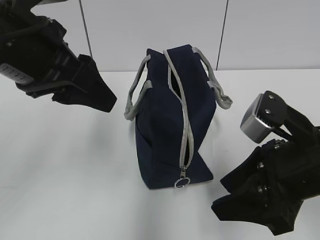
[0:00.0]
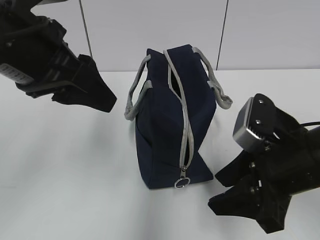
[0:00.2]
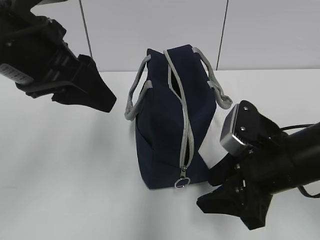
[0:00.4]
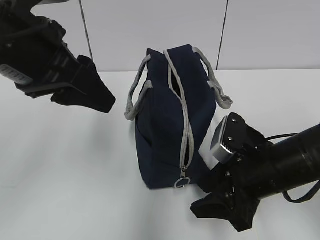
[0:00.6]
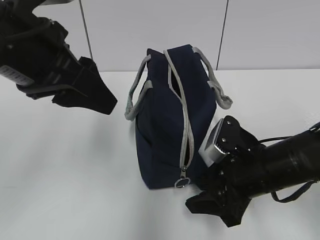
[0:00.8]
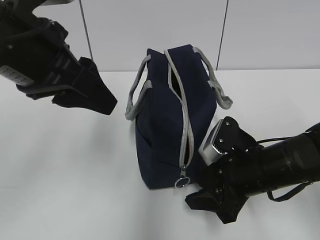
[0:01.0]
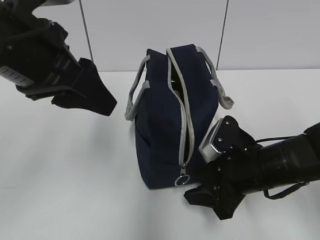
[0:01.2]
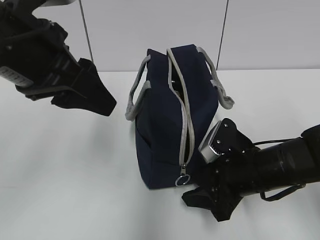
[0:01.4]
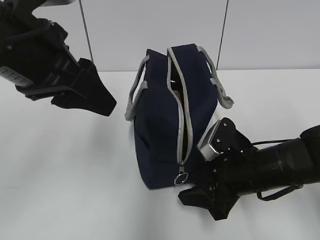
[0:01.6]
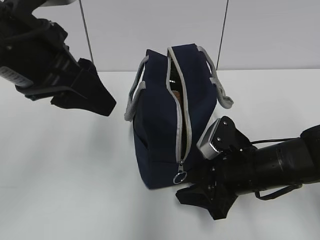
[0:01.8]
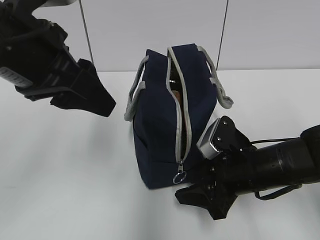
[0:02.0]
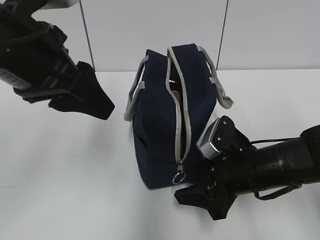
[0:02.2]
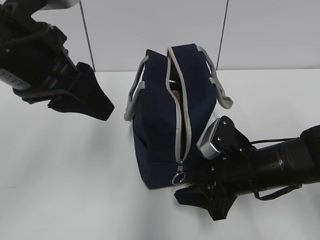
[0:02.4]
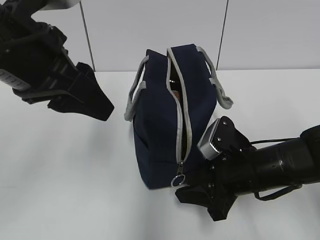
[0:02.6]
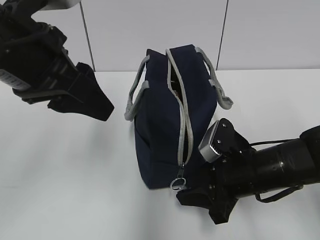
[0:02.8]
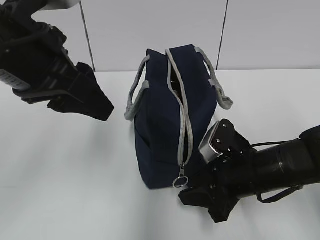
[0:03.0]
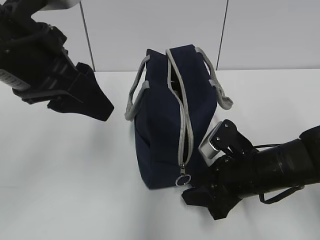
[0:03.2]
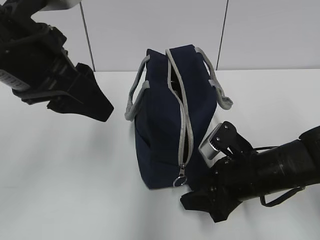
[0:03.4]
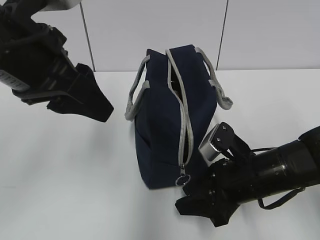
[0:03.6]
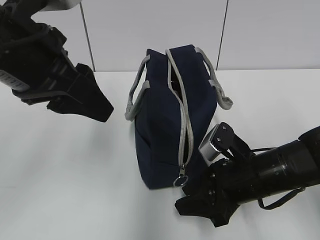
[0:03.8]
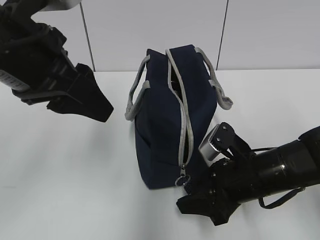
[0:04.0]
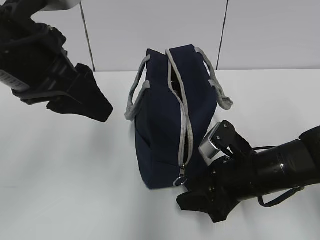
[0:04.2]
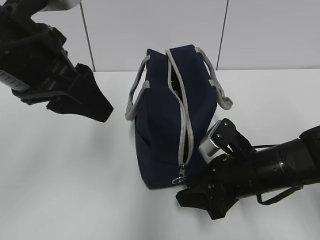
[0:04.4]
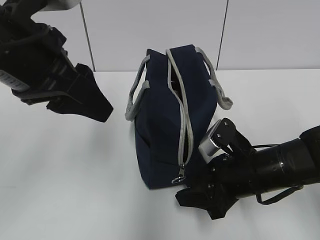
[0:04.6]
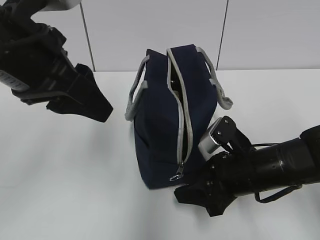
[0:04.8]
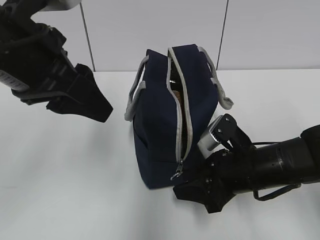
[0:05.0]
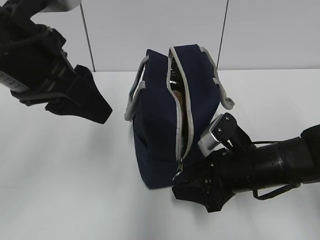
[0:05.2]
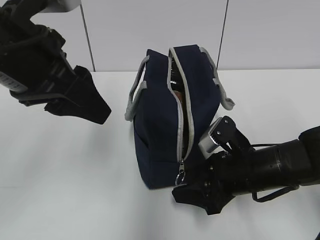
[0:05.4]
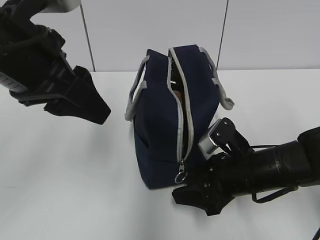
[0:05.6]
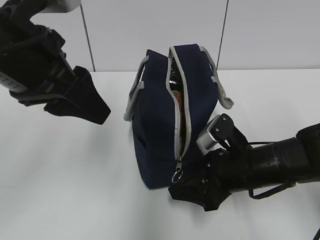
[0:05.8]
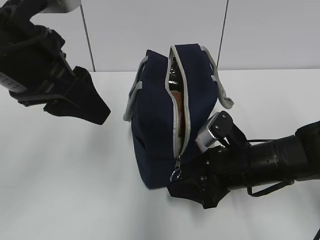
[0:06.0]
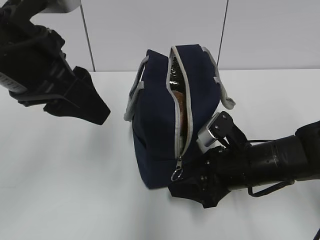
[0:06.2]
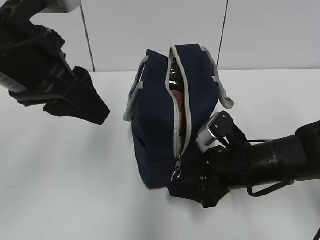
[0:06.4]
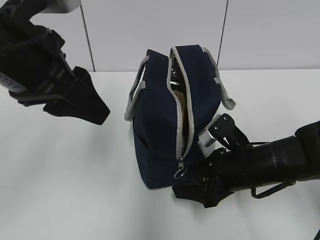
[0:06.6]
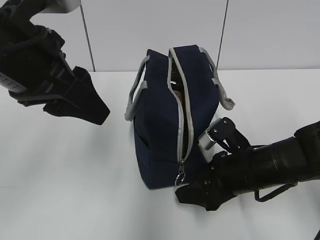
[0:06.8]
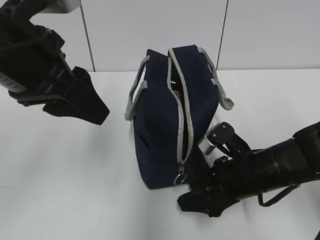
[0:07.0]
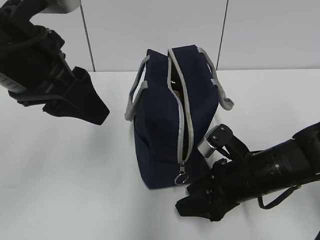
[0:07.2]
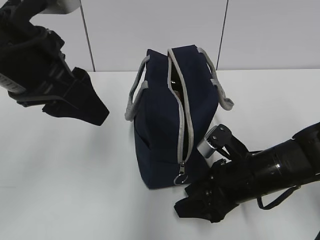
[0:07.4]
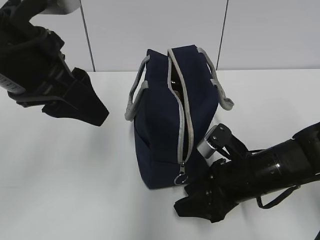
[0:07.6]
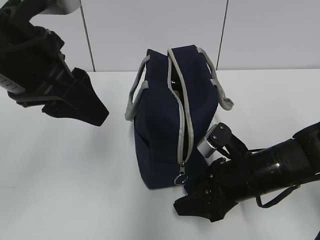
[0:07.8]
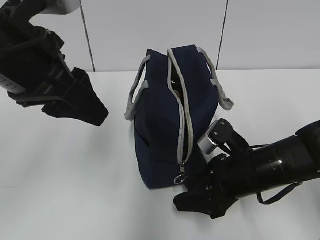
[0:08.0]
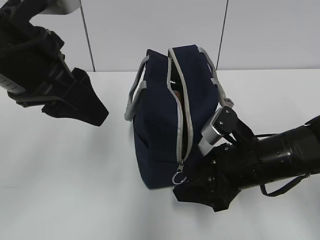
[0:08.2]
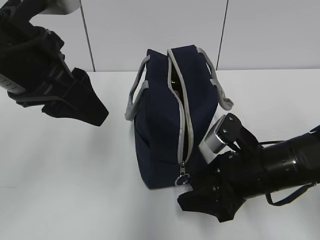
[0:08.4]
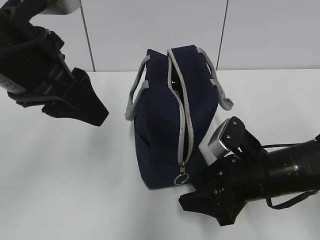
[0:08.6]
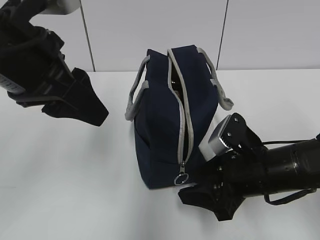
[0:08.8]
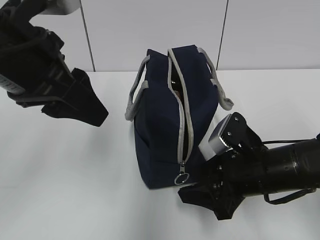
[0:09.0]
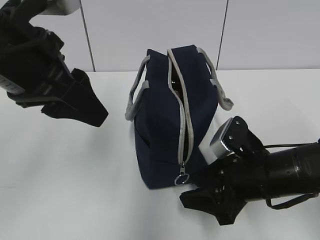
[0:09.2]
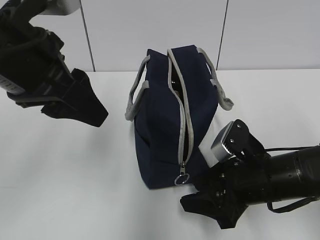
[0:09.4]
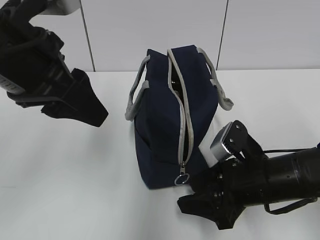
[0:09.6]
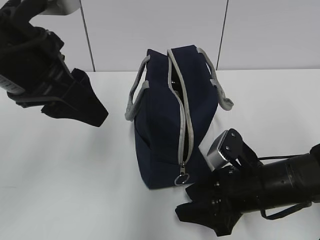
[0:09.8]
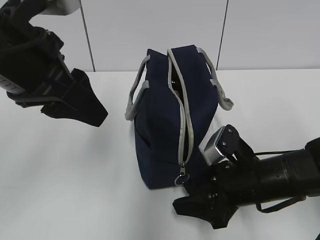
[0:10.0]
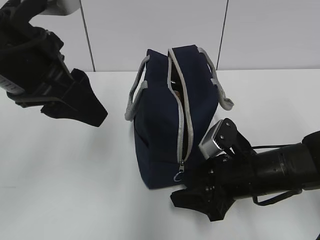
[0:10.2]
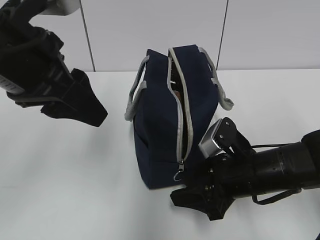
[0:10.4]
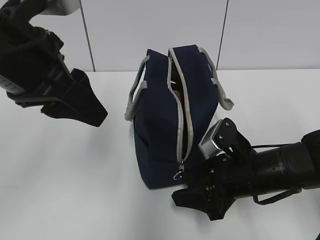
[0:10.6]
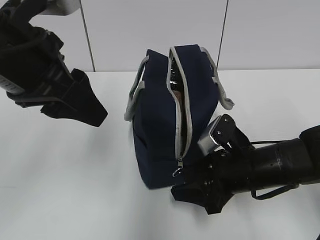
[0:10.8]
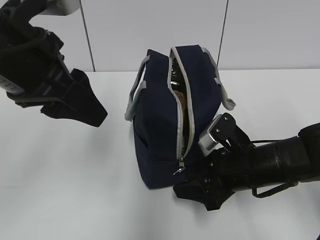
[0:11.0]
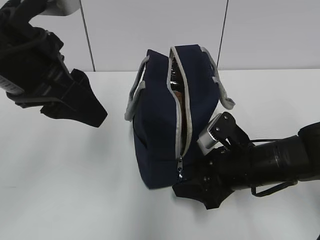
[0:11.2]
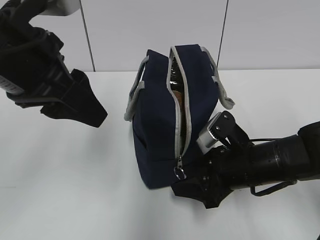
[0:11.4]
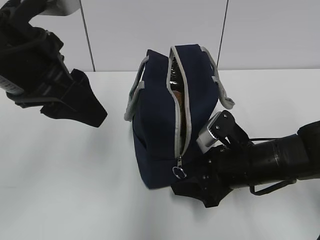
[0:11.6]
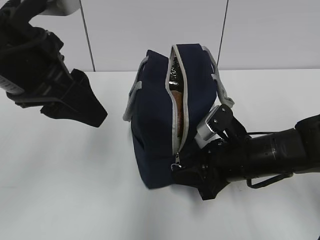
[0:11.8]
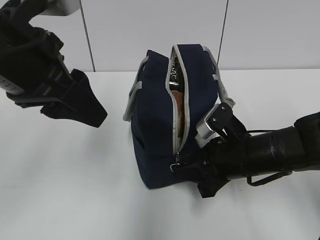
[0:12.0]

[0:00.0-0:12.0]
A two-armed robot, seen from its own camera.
0:00.0 to 0:01.6: The right gripper heads downward and forward, covering roughly 10 cm.
0:01.6 to 0:03.0: Neither gripper changes place.
0:03.0 to 0:10.4: The grippers move only a little.
0:10.4 to 0:12.0: The right gripper closes its fingers.

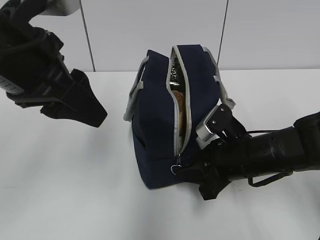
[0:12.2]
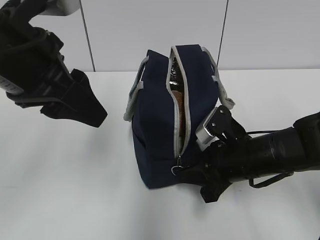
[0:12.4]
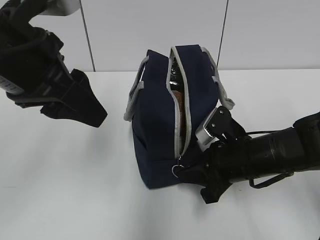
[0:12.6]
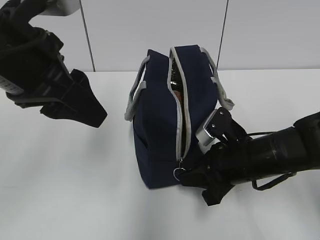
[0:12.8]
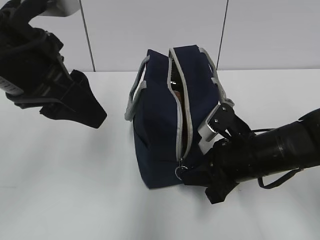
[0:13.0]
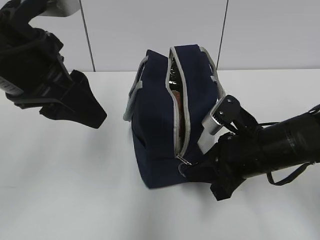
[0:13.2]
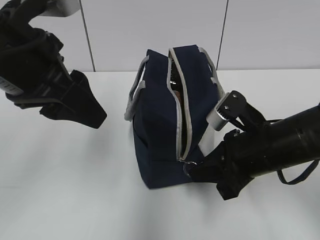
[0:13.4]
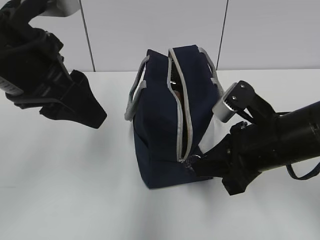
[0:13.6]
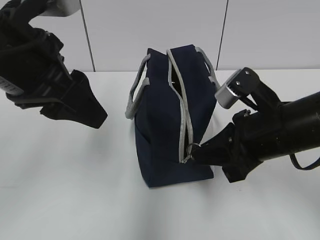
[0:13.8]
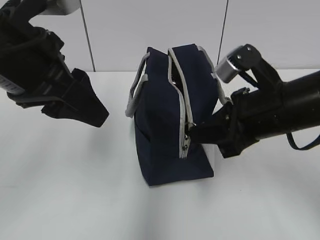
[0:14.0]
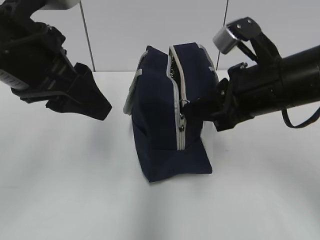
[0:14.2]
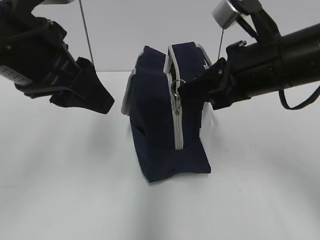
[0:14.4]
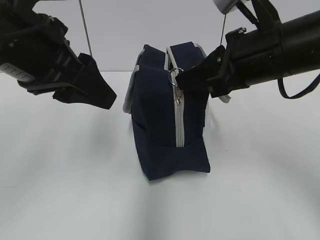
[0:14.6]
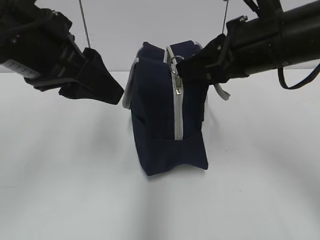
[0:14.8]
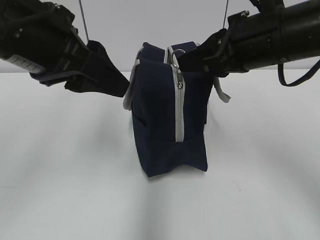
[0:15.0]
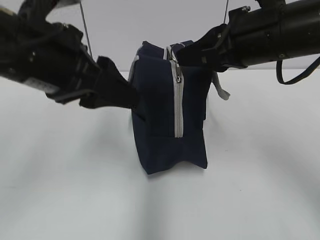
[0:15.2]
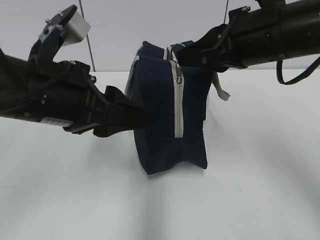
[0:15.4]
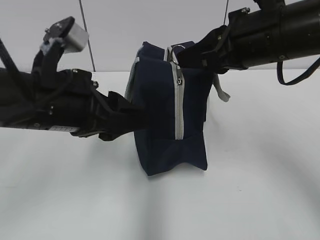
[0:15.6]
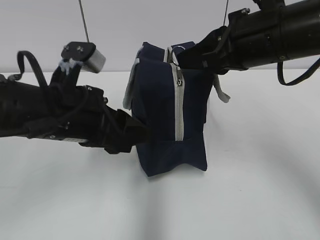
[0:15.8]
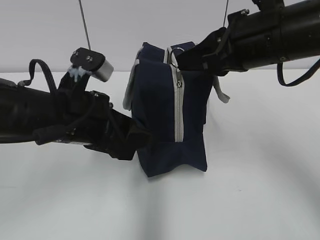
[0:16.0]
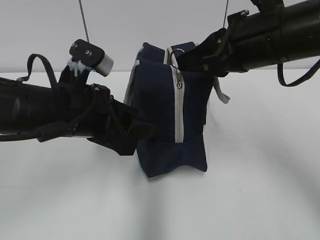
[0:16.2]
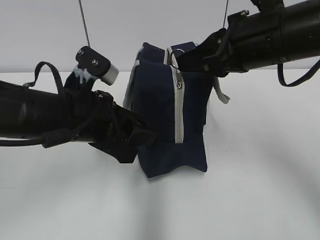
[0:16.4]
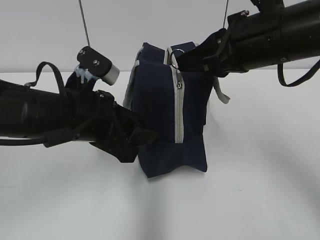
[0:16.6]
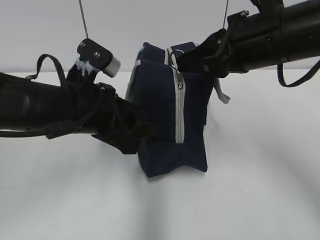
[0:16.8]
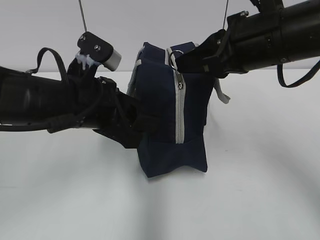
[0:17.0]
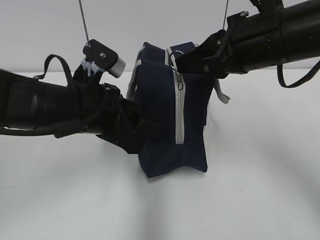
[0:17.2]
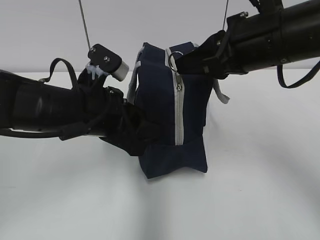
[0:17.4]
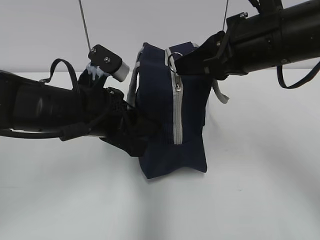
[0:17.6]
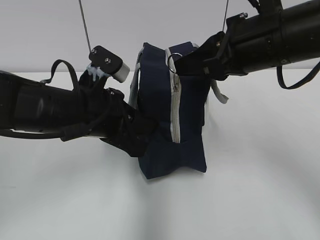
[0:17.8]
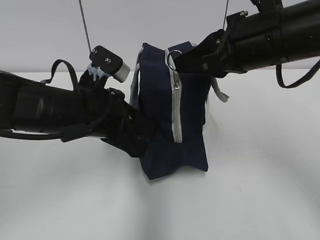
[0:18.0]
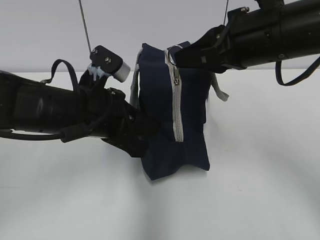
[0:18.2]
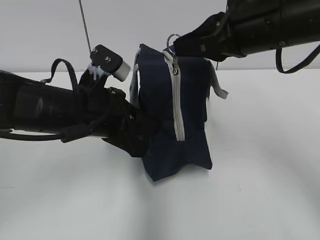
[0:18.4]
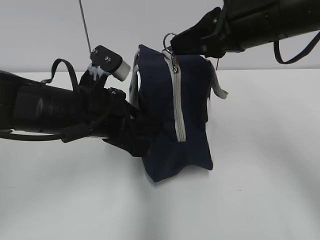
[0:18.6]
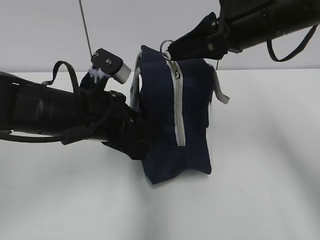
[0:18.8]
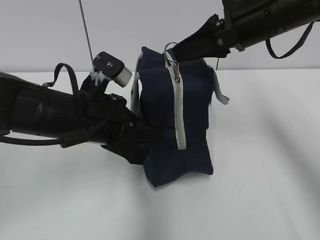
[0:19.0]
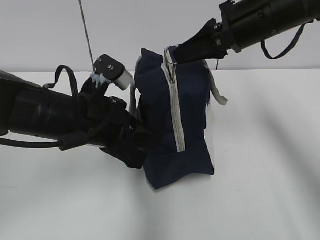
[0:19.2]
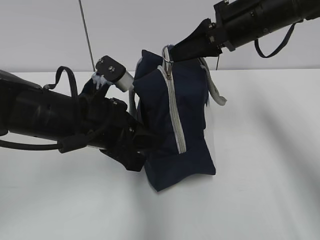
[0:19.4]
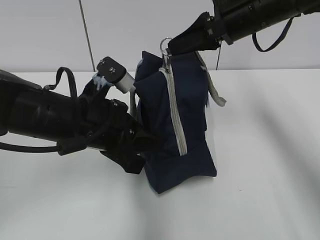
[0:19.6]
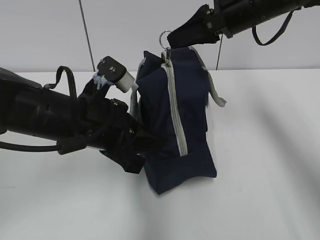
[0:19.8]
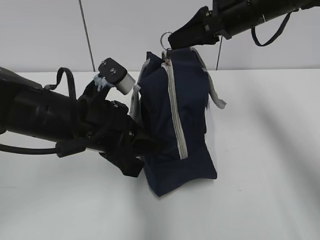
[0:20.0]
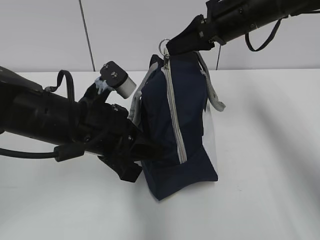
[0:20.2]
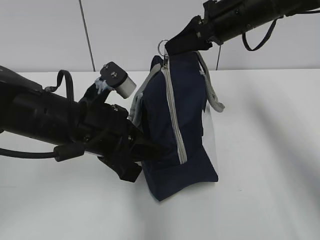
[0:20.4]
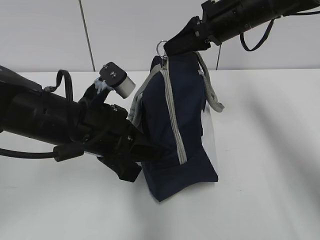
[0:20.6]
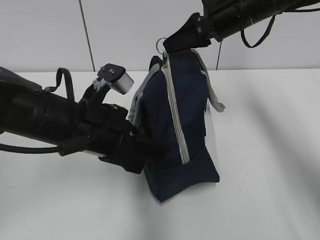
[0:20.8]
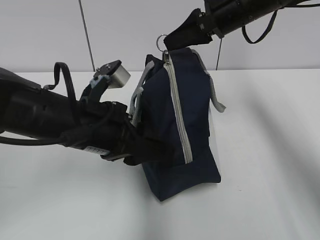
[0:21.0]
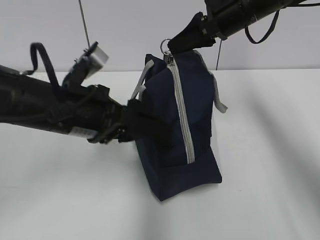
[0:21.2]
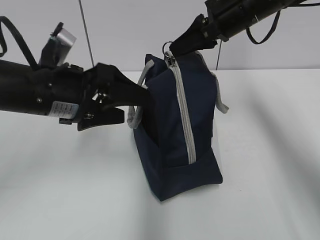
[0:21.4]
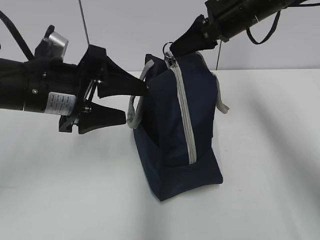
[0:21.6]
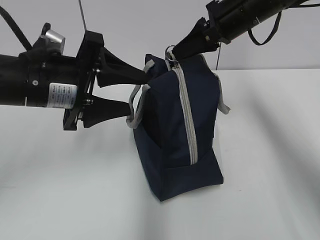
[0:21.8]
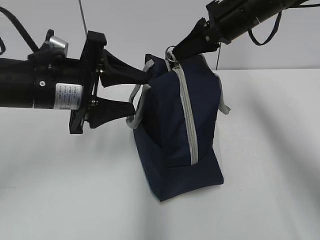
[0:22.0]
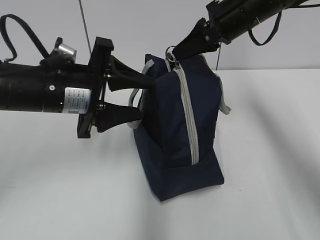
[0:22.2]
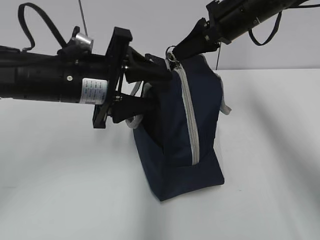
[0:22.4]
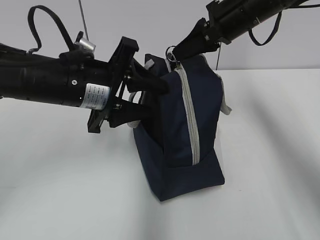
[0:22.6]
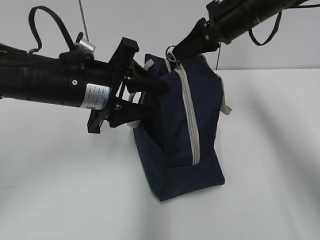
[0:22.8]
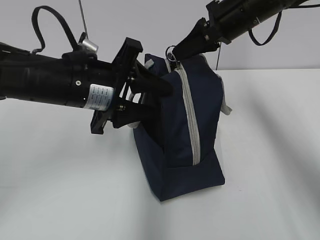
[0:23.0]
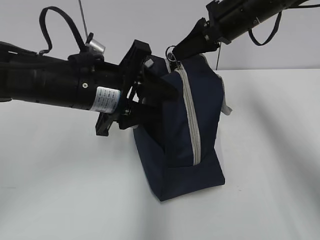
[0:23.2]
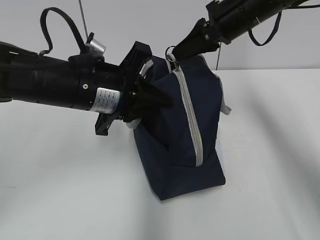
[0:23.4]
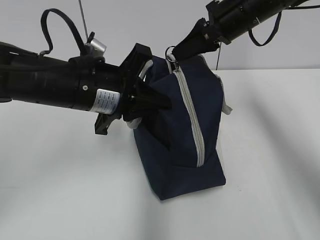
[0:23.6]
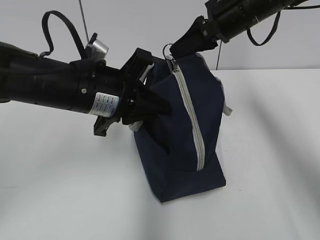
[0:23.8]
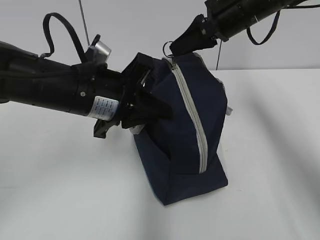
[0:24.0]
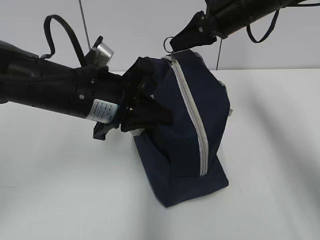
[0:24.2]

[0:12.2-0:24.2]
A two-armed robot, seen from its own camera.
0:12.2 to 0:13.8: The right gripper moves upward, about 10 cm.
0:13.8 to 0:15.2: The right gripper is displaced upward by some 10 cm.
0:15.2 to 0:16.6: The left gripper shifts some 10 cm downward.
0:16.6 to 0:18.2: The left gripper closes.
0:18.2 to 0:19.8: The right gripper goes approximately 10 cm forward.
0:19.8 to 0:21.2: The left gripper opens up.
0:22.6 to 0:24.2: The left gripper closes.
